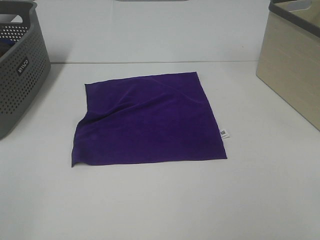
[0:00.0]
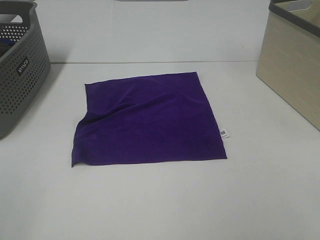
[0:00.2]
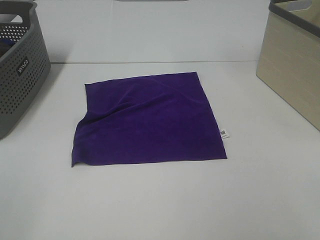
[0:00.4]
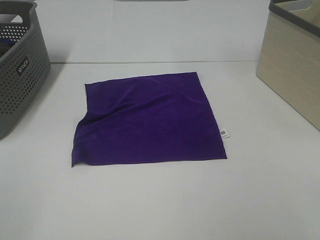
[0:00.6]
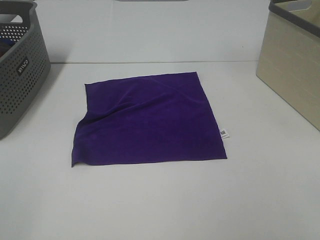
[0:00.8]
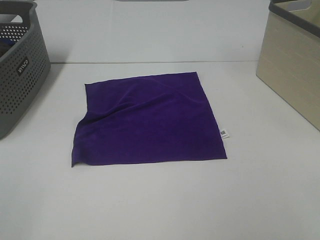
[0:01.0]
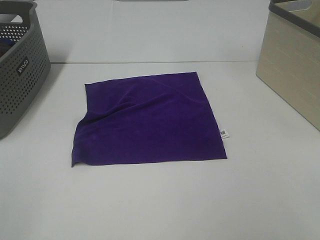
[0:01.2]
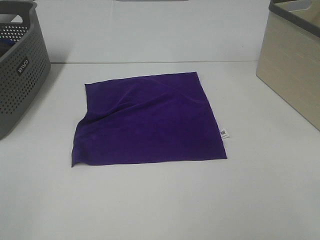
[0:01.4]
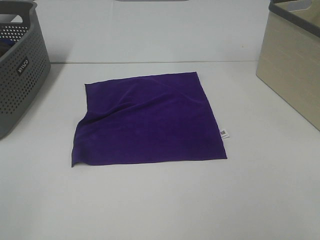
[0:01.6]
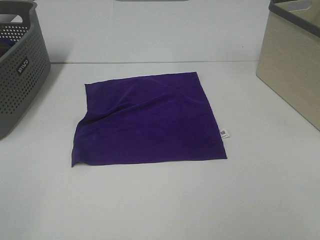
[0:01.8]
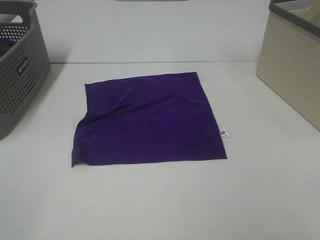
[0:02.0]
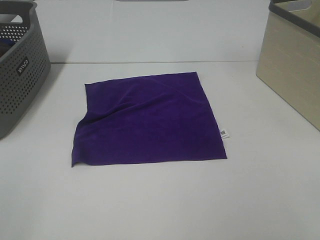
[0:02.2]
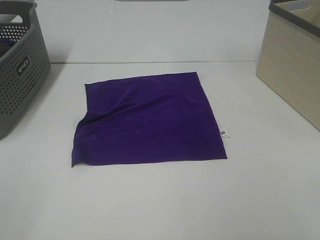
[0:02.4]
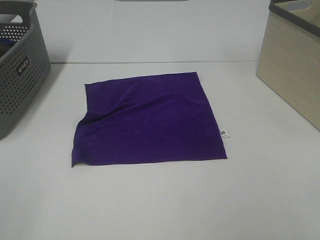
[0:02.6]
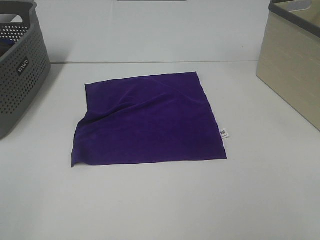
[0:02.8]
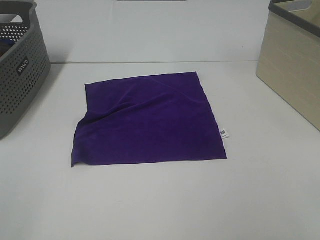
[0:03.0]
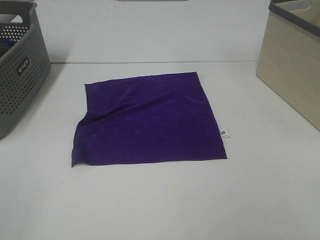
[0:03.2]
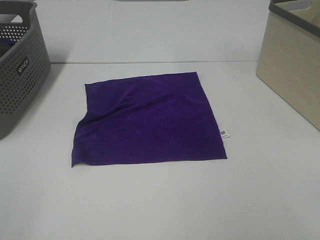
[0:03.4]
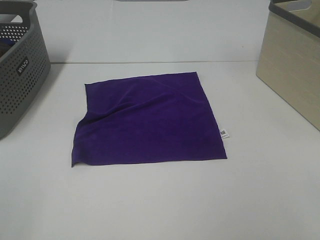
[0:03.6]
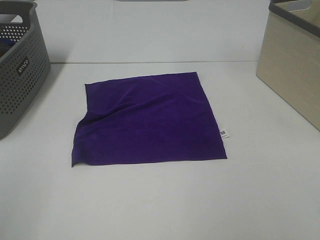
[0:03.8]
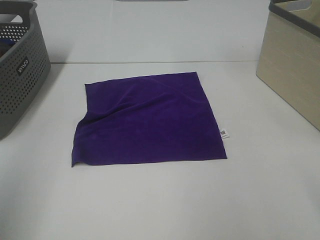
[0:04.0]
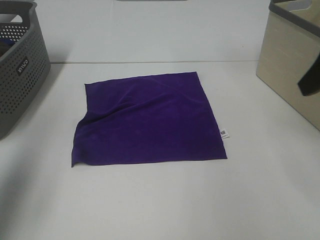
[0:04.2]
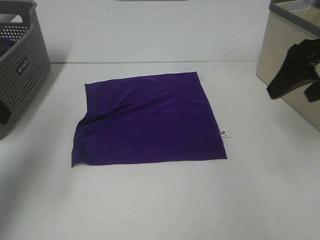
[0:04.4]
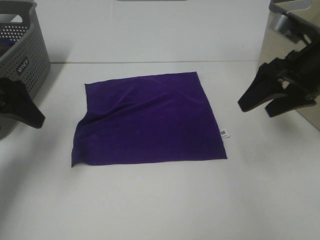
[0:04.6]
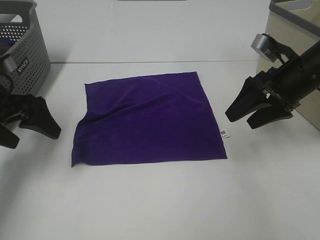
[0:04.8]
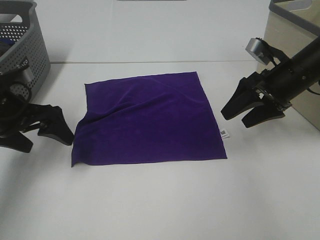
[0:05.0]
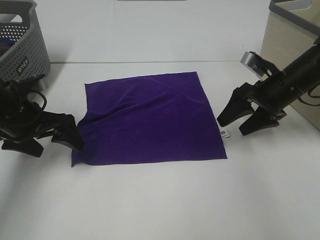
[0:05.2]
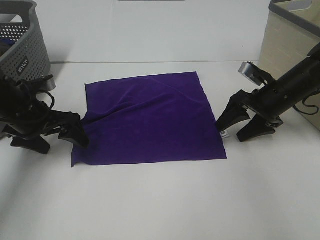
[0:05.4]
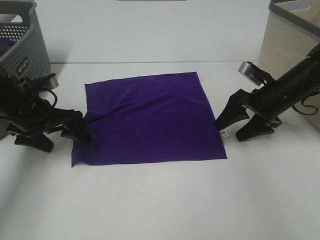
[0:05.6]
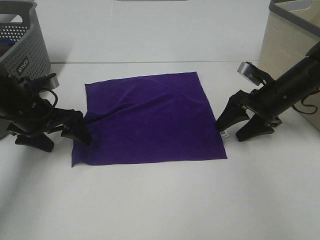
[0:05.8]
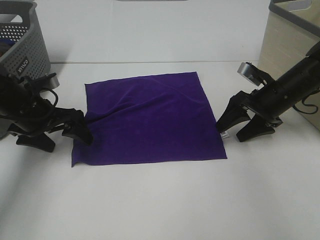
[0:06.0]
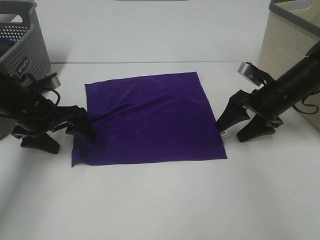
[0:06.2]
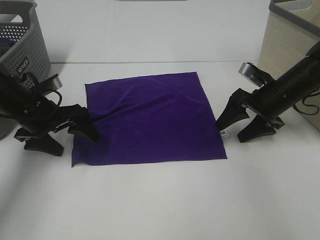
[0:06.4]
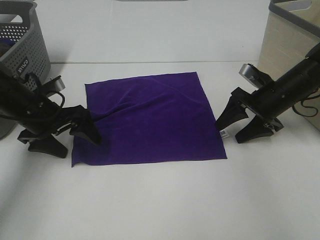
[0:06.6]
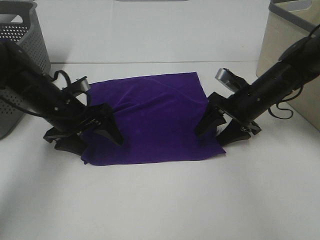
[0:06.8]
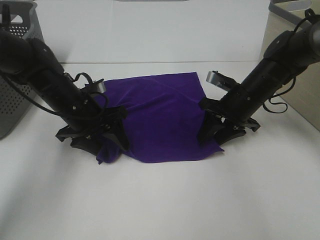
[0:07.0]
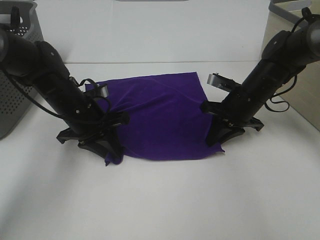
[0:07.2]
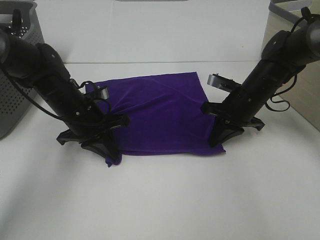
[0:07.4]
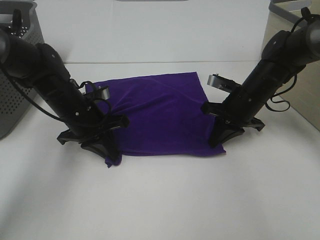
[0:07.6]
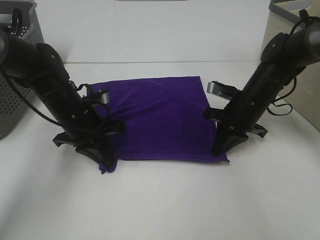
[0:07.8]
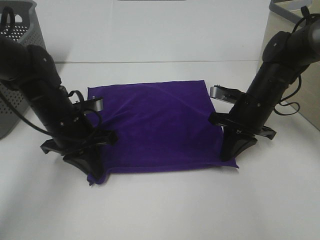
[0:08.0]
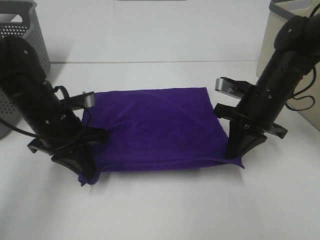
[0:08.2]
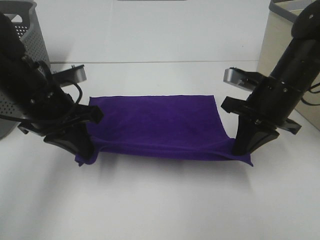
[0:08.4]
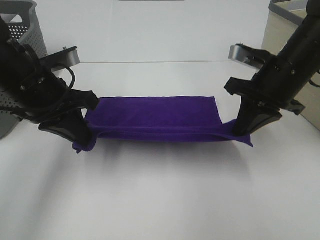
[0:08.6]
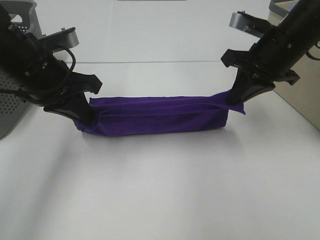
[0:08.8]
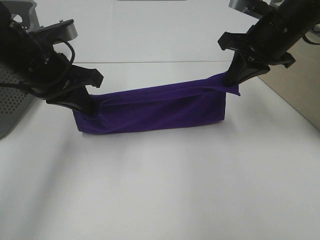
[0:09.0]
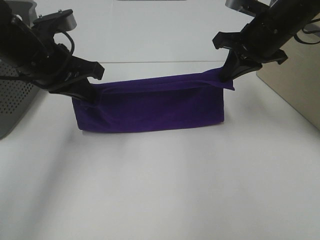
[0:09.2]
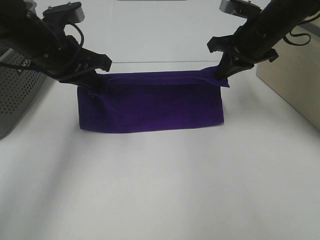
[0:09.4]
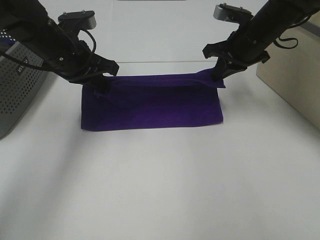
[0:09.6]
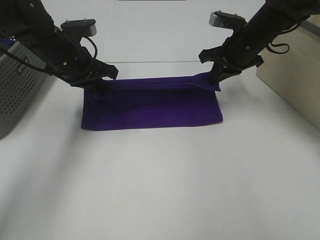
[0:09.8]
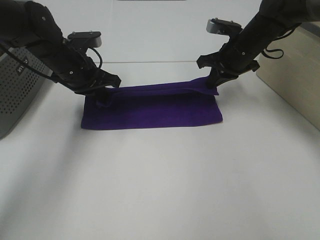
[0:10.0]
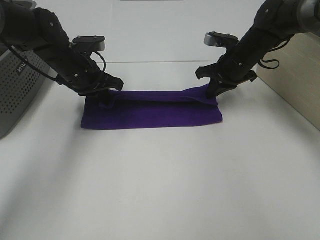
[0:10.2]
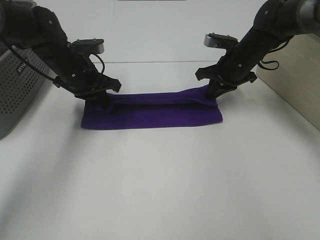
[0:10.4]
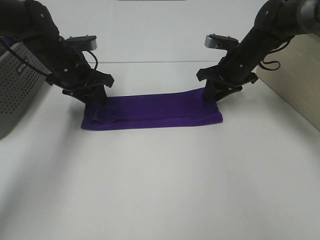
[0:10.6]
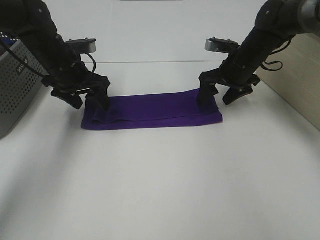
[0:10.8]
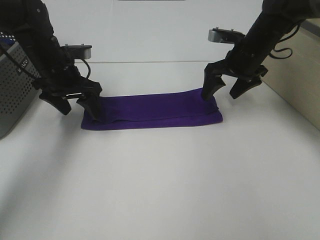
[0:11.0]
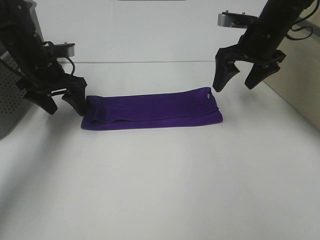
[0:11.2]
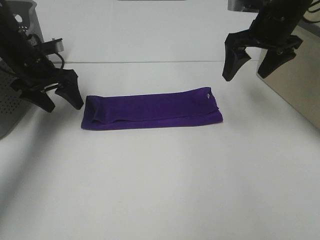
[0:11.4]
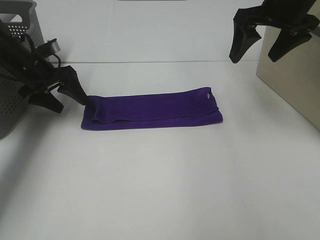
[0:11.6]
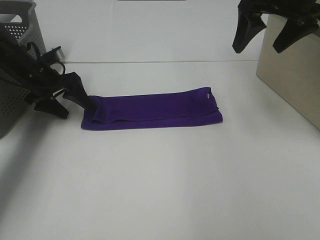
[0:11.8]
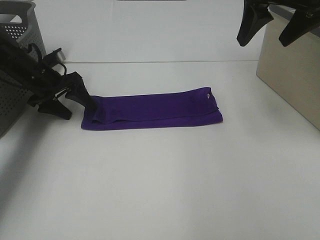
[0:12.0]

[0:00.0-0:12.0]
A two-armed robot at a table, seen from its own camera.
Task of the whole recording: Fold towels.
Step, 0.0 to 7.2 s: Left hand: grab the bottom left corner of purple towel.
Step, 0.0 to 7.2 s: Right hand: grab the bottom right corner of purple towel.
Step, 7.4 to 10.4 s: Left hand: fold the purple towel up.
Step, 7.4 to 10.4 s: Right hand: fold the purple towel up.
0.0 to 3.0 s: Both grippers stay about where they are.
3.0 to 4.4 s: The grippers both shift forward by roughly 25 cm.
4.4 to 6.0 s: The grippers both shift downward and forward by roughly 20 cm.
6.0 to 7.6 s: The right gripper travels to the left by approximately 5 cm, and closes its fingers. The left gripper heads to the right, covering about 10 cm, and closes up.
7.6 to 9.0 s: Both grippers travel together upward, some 15 cm.
9.0 to 10.4 s: The left gripper travels forward and downward by roughly 15 cm, while the right gripper shifts approximately 15 cm downward and forward.
10.4 to 12.0 s: The right gripper shifts approximately 20 cm upward and backward, and opens up, while the left gripper travels to the left by about 10 cm, and opens.

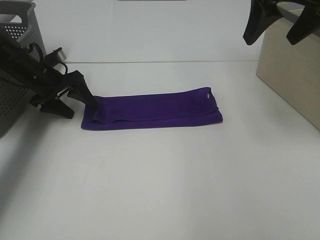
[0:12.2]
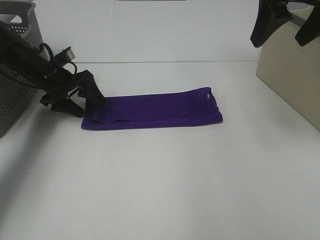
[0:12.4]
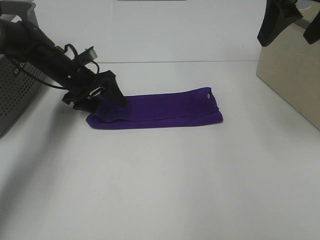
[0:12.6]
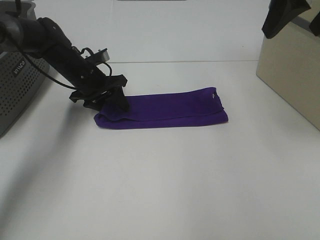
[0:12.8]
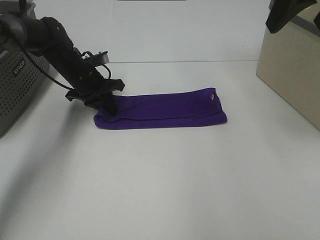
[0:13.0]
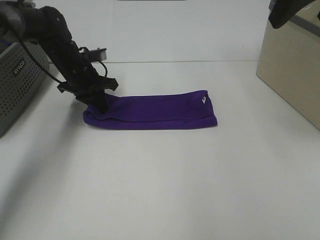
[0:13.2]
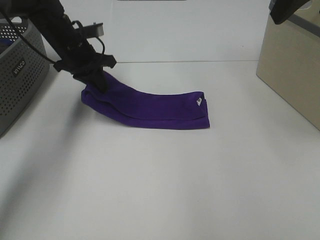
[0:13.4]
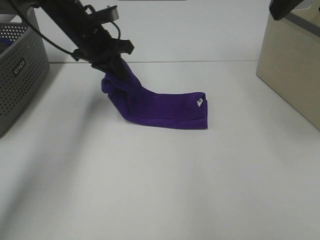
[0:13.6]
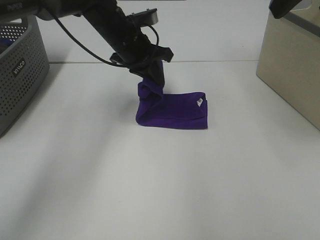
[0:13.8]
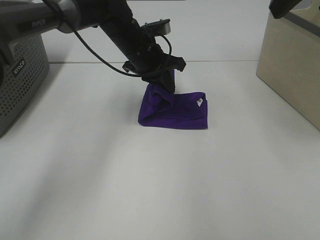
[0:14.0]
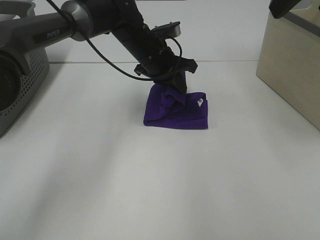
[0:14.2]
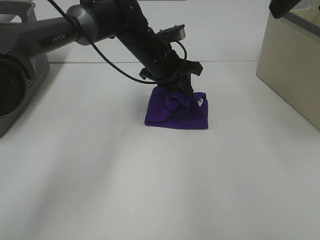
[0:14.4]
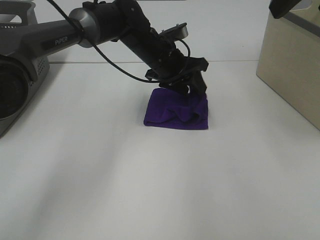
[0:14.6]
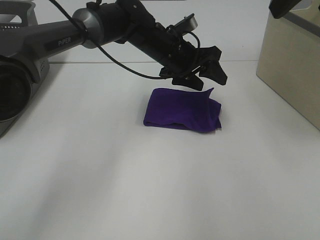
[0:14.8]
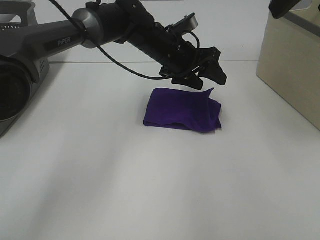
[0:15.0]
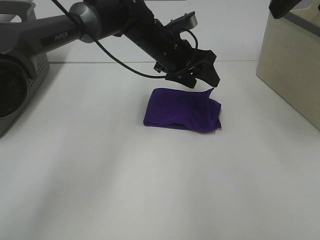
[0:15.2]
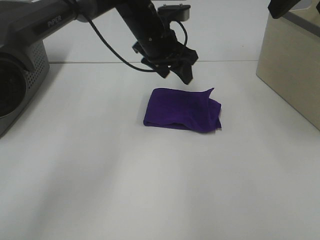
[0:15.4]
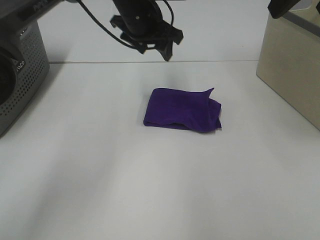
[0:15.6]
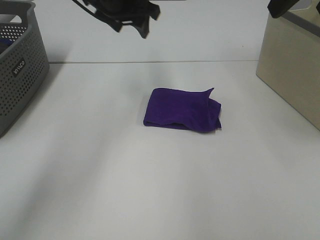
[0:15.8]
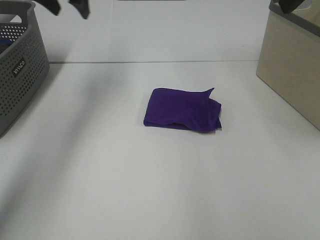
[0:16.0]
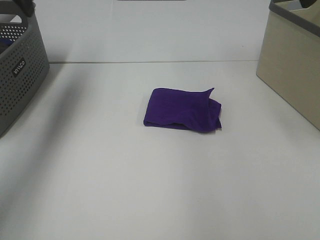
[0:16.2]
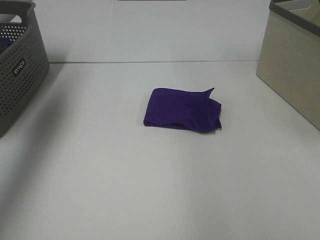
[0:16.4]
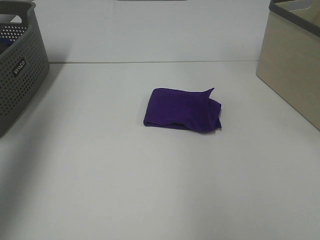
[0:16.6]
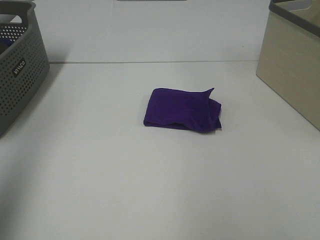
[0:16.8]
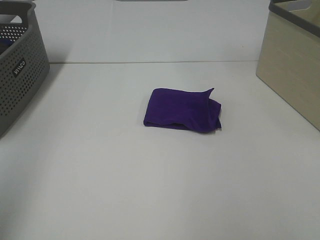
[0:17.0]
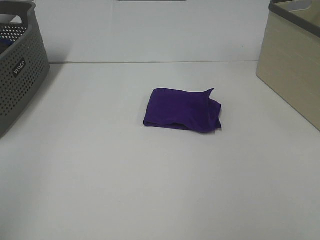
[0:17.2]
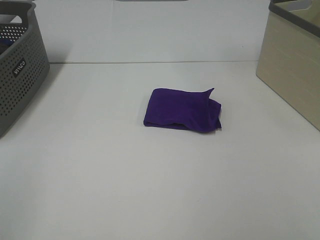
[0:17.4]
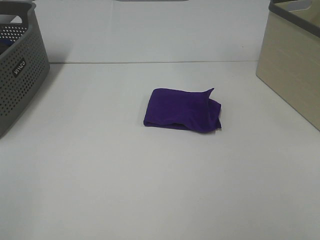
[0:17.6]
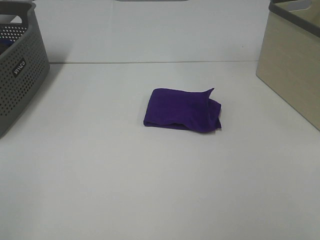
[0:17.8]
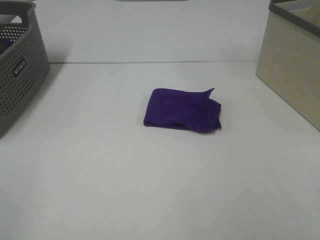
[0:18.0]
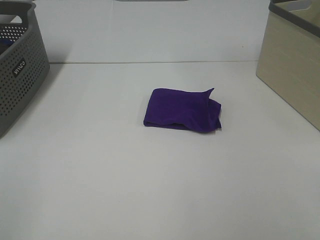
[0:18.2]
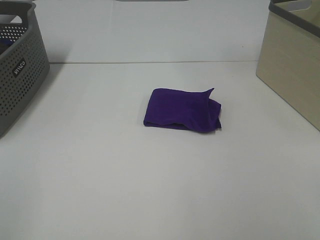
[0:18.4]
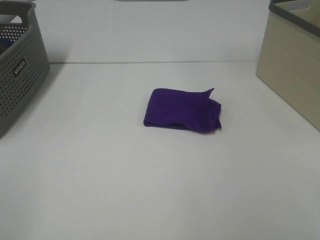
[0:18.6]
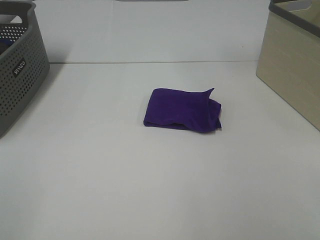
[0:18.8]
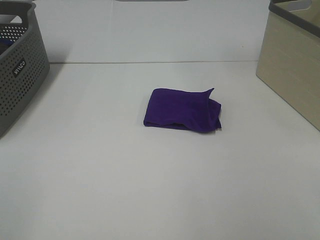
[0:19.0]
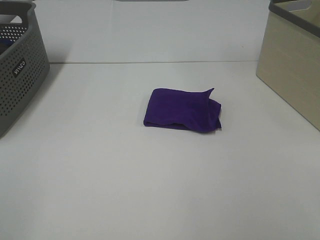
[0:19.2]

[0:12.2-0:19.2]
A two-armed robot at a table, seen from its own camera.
Task of the whole recording: Fold towels.
Step, 12.2 to 14.4 s: Left hand: fold the purple towel from left to right.
12.2 to 13.6 s: The left gripper is displaced to the right and upward by some 15 cm, and closes; the right gripper travels backward and upward by about 10 cm.
13.6 to 15.0 s: The left gripper heads to the right, covering approximately 15 cm, and opens its fingers.
15.0 to 16.4 s: The left gripper goes some 40 cm to the left and upward.
16.4 to 17.8 s: The left gripper heads backward, covering roughly 35 cm.

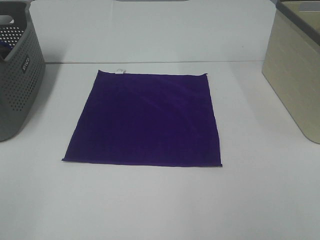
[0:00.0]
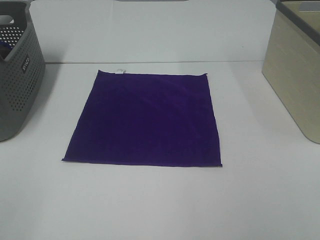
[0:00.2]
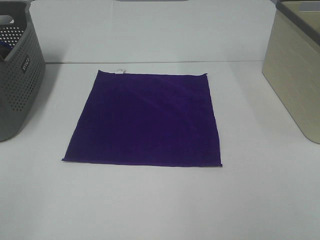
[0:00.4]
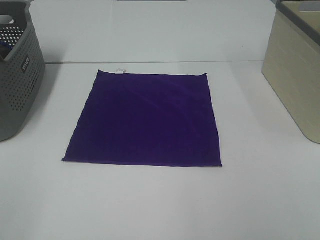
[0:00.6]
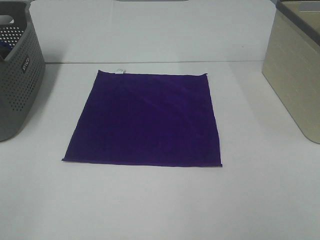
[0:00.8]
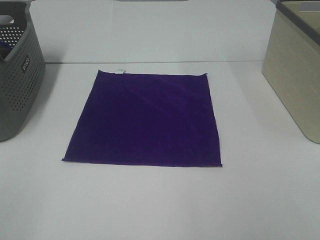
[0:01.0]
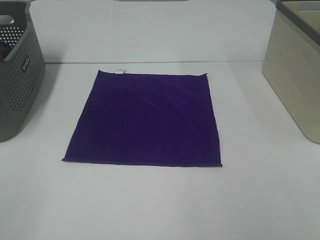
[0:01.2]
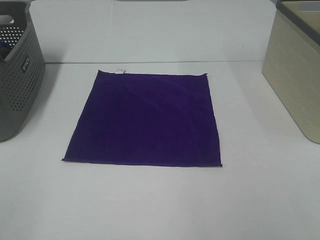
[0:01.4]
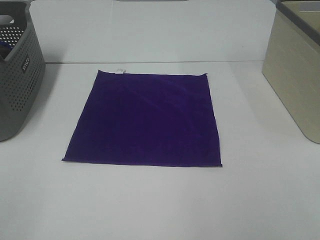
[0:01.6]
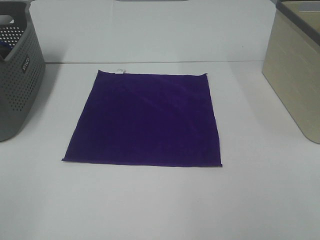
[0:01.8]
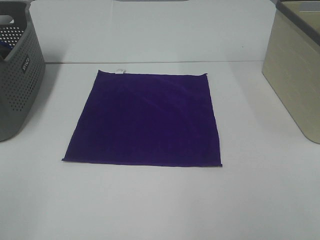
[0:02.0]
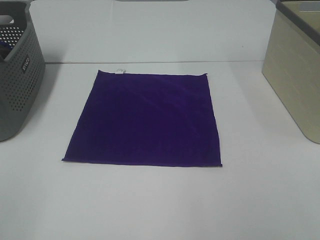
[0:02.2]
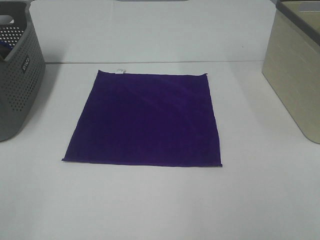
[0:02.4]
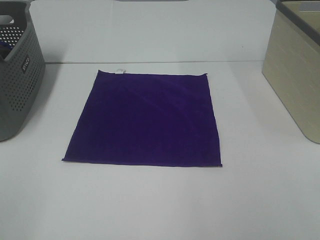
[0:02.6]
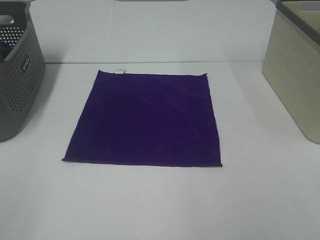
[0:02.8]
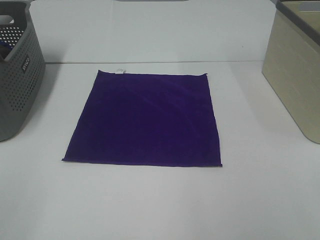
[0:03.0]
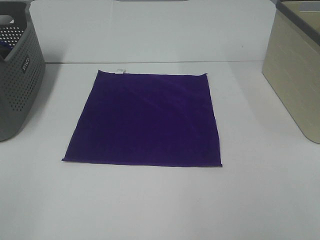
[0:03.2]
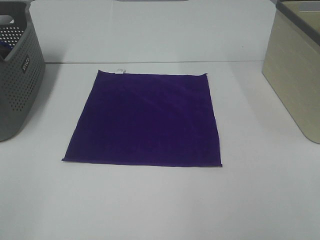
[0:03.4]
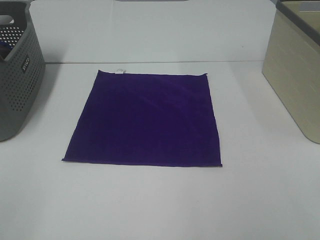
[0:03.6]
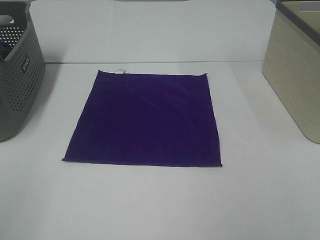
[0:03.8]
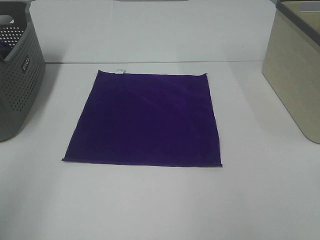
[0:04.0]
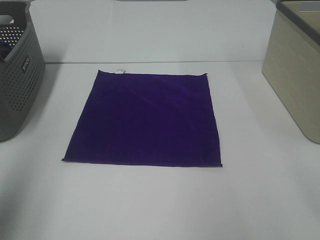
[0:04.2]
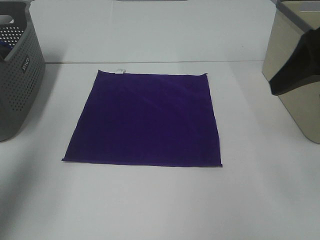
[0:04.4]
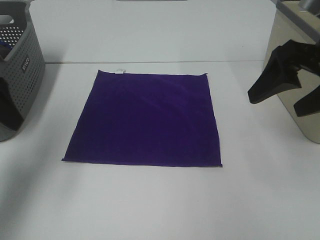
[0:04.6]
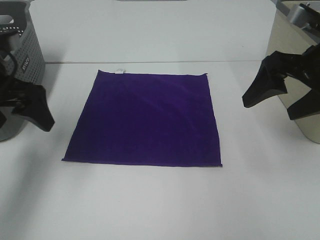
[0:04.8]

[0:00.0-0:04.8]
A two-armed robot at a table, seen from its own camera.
Task of the whole recording: Fold towels.
3.2 to 4.8 s: Both grippers travel together forward, approximately 30 cm.
